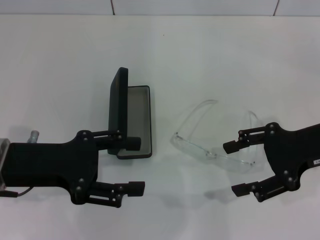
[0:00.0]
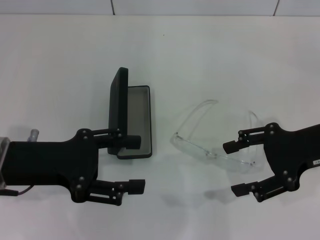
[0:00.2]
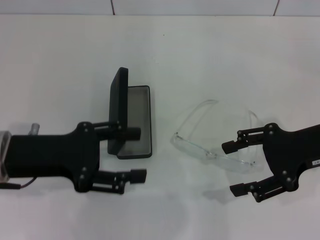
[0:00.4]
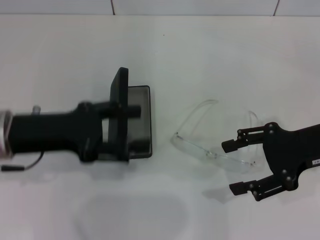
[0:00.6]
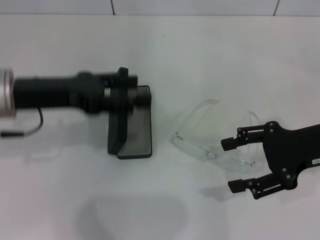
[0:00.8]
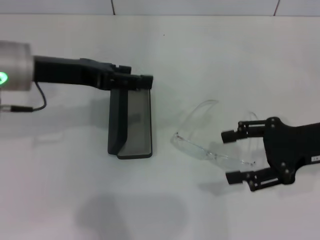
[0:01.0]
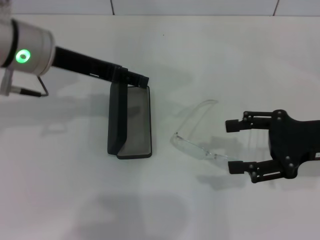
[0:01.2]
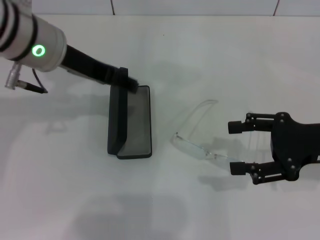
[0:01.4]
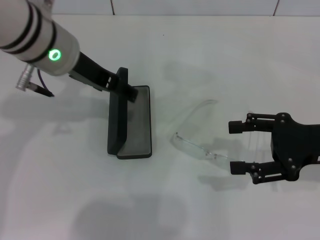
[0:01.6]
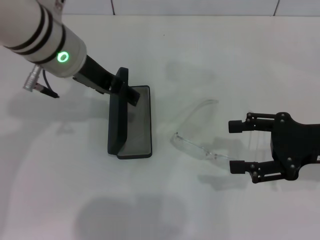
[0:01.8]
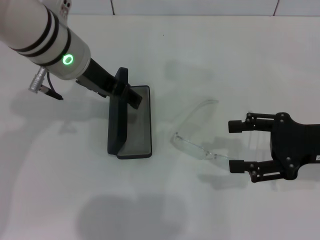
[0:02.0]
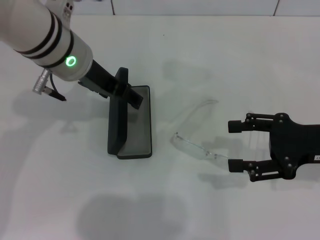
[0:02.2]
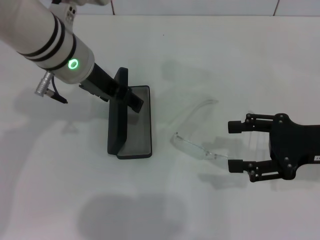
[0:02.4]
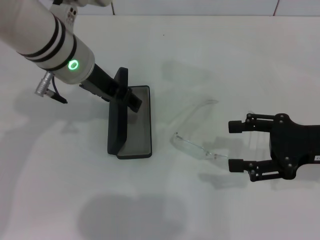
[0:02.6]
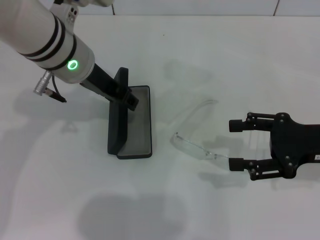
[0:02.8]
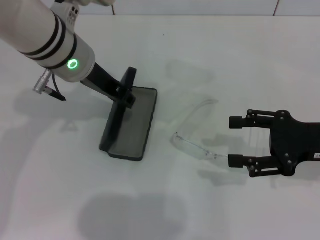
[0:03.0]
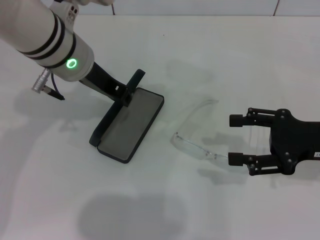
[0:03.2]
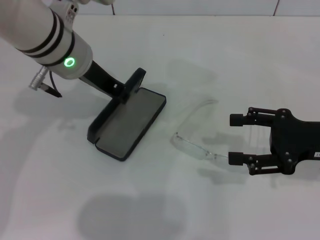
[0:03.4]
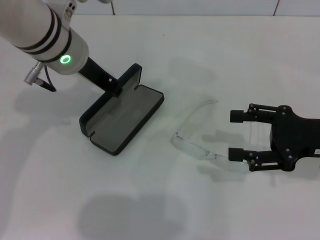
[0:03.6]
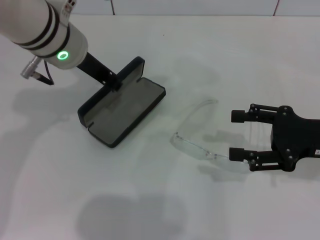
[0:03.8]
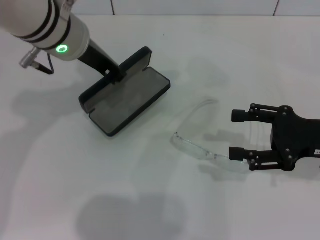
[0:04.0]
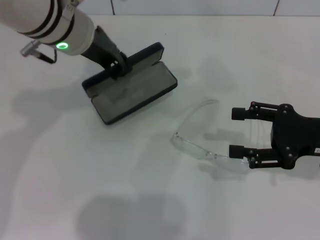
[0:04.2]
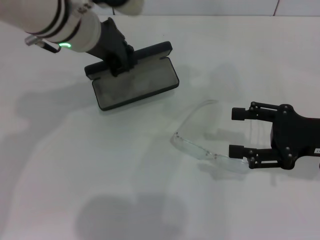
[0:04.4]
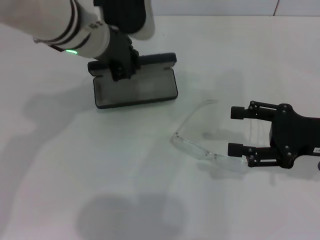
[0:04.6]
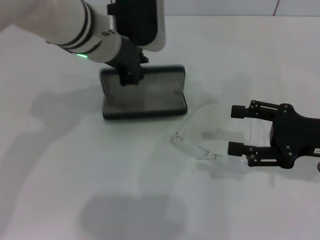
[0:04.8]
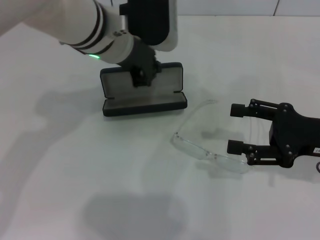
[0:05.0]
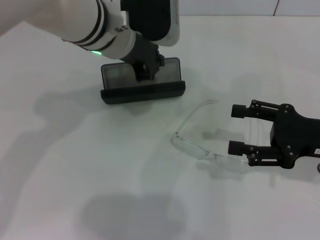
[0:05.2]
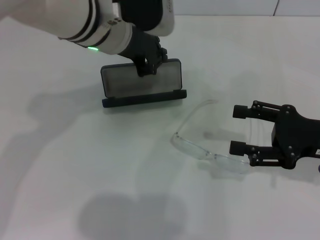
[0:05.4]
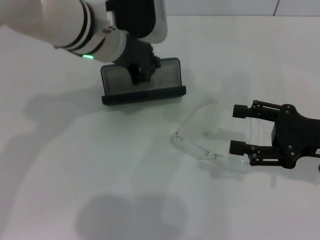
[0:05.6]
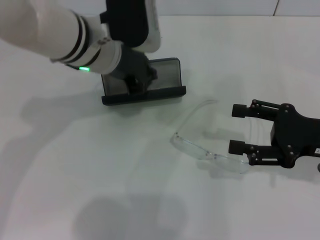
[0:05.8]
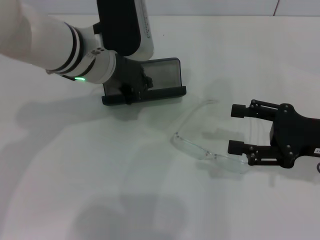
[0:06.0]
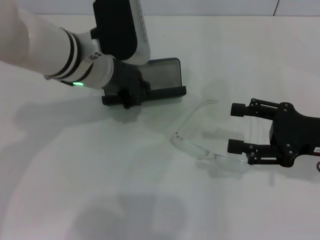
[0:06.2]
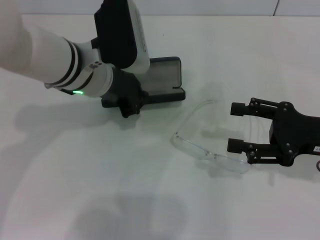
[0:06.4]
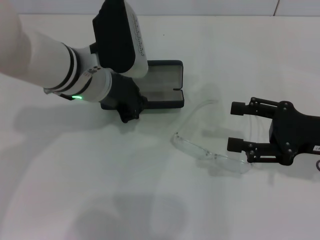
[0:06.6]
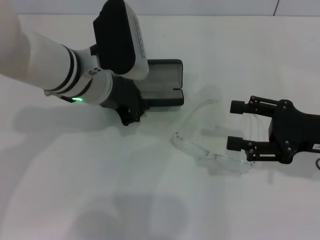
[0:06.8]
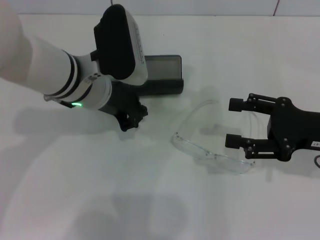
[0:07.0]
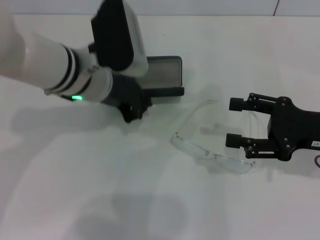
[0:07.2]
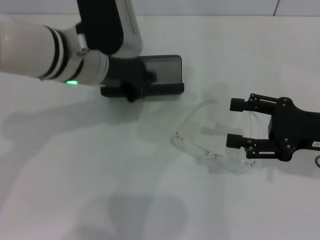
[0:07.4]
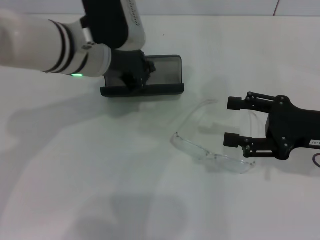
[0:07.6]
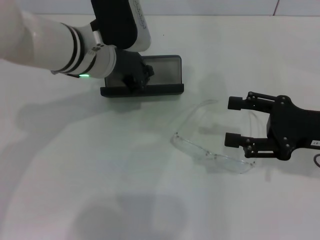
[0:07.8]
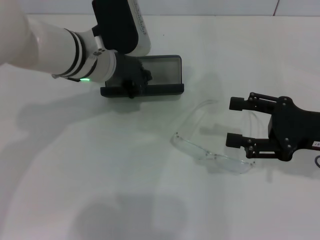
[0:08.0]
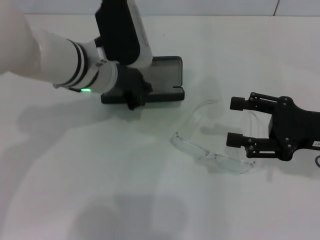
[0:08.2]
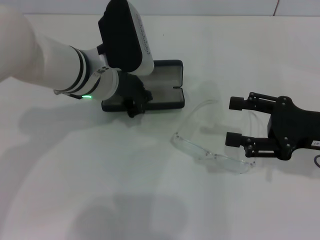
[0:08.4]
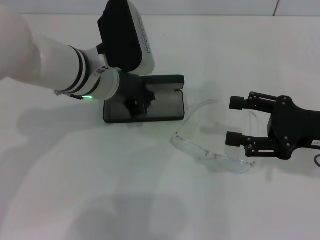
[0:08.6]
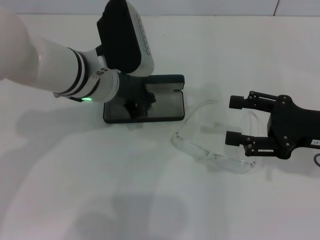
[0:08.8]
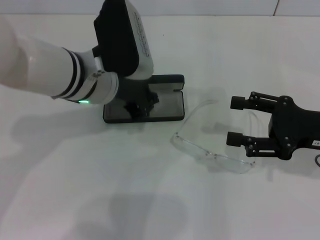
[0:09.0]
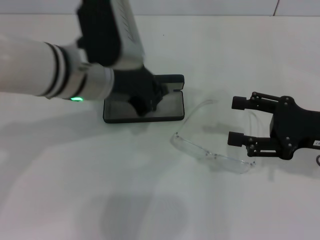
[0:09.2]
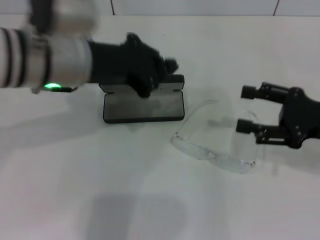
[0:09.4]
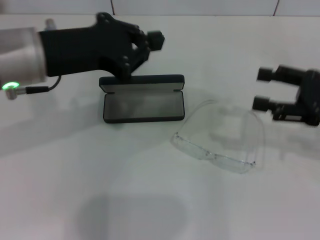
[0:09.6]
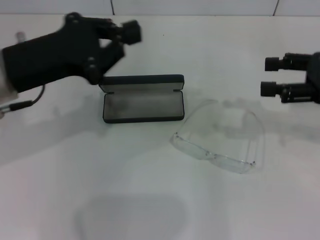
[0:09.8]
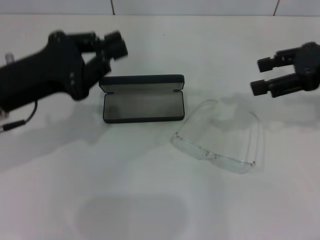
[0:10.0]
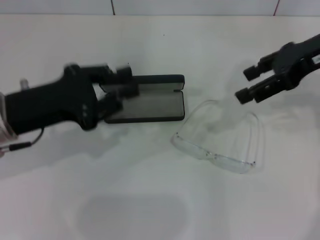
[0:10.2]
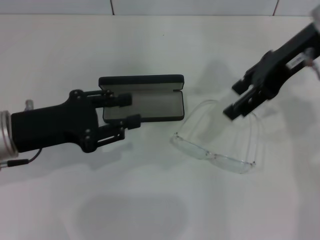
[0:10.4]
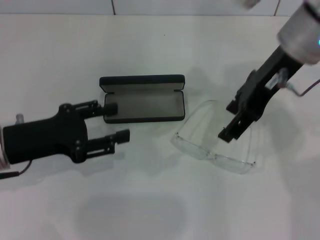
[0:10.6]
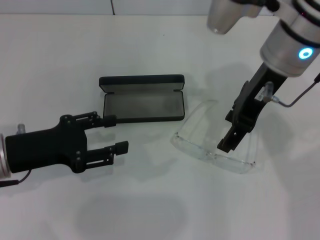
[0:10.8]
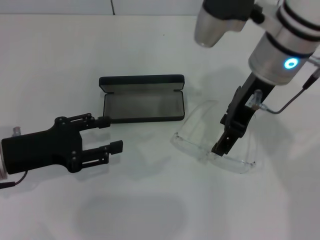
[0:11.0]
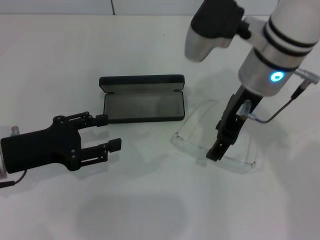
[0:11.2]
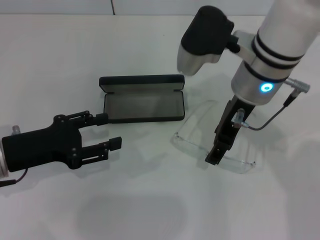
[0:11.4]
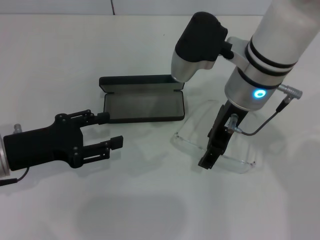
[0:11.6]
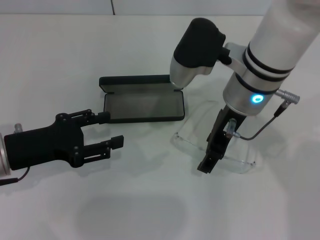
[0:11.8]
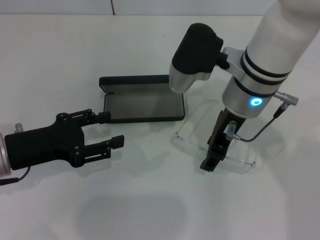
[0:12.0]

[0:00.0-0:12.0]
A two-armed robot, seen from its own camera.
Step, 0:00.0 to 0:03.6: Grab the glasses case with your left hand.
Step, 0:03.8 to 0:05.2: Place the glasses case in the center of the table with your left hand.
0:00.0 to 0:01.6: The left gripper heads forward, to the right and upward, covering some 15 cm.
0:01.6 to 0:03.0: The grippers make only small movements.
0:03.0 to 0:04.4: The left gripper closes up.
0:04.4 to 0:06.0: The grippers stay close to where they were, moving slightly.
0:06.0 to 0:09.0: There are only small adjustments of the grippers.
0:09.0 to 0:10.4: The left gripper travels to the left and backward by about 15 cm, and opens its fingers. The right gripper heads upward, forward and to the left, covering about 20 cm.
0:10.4 to 0:12.0: The left gripper opens up, while the right gripper shifts about 15 cm to the left and downward.

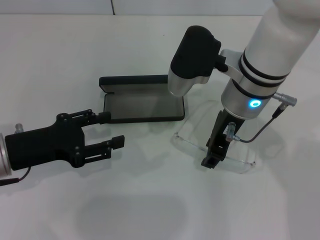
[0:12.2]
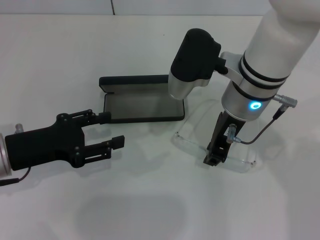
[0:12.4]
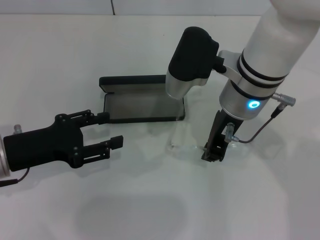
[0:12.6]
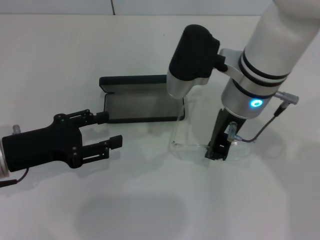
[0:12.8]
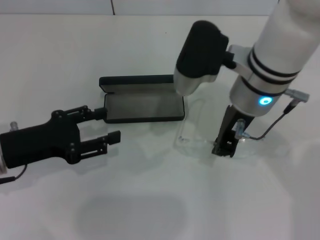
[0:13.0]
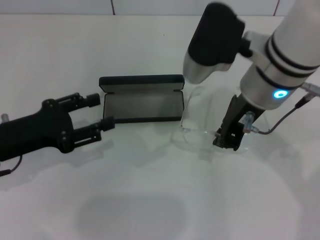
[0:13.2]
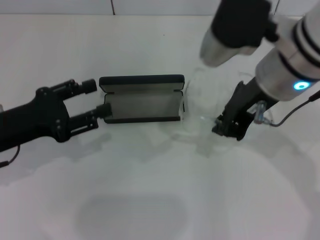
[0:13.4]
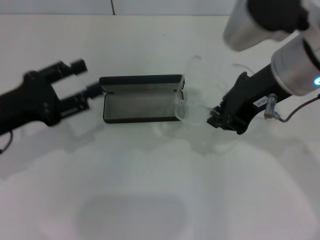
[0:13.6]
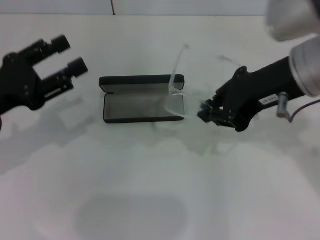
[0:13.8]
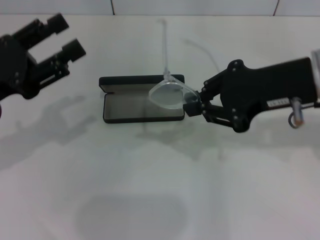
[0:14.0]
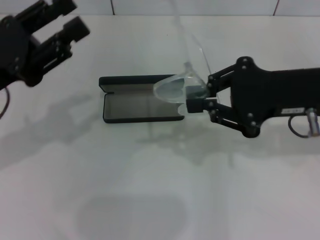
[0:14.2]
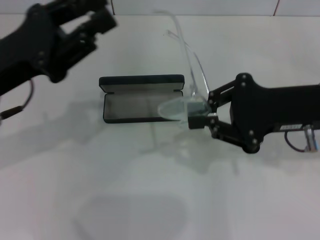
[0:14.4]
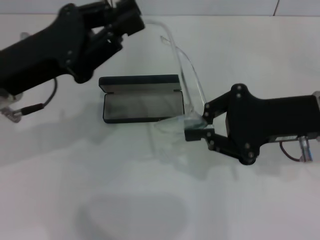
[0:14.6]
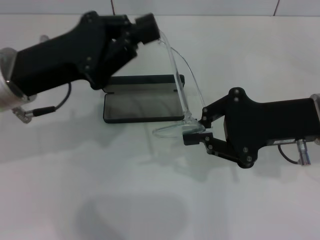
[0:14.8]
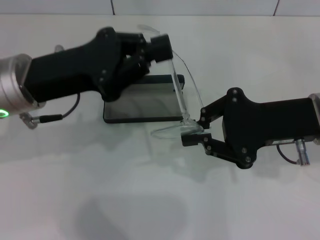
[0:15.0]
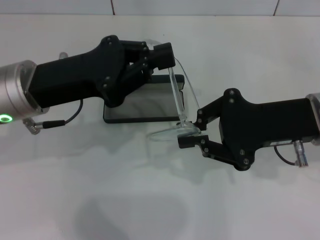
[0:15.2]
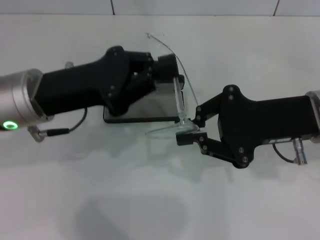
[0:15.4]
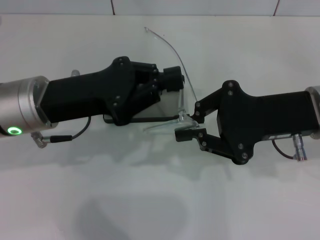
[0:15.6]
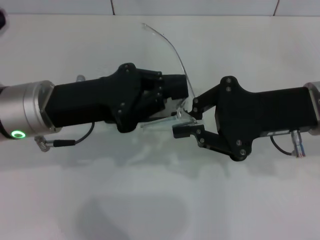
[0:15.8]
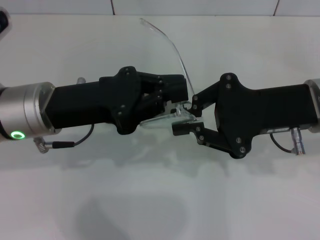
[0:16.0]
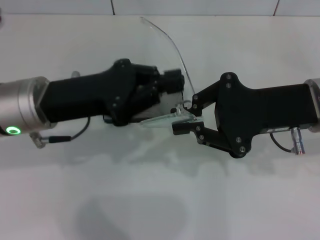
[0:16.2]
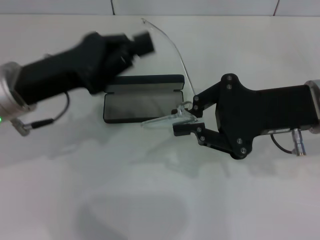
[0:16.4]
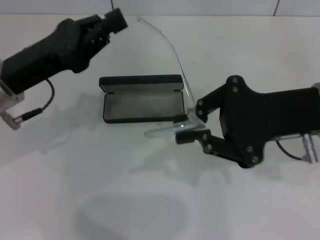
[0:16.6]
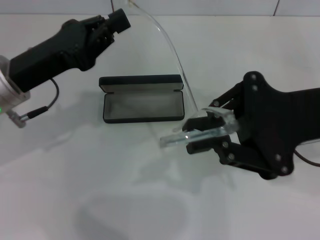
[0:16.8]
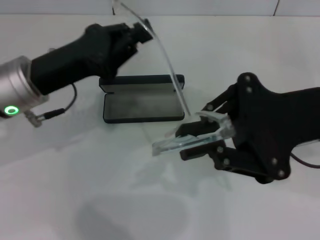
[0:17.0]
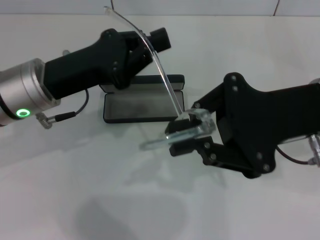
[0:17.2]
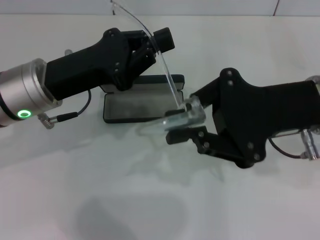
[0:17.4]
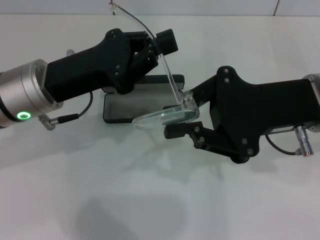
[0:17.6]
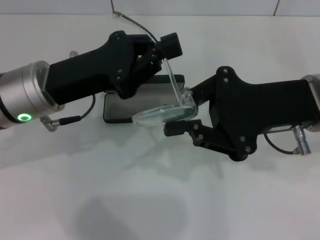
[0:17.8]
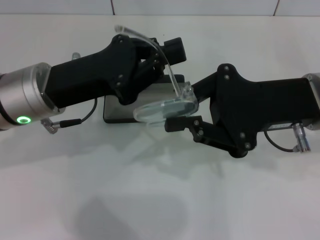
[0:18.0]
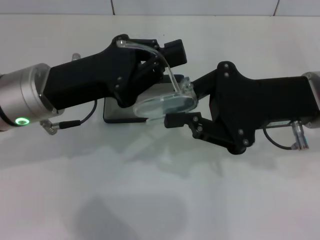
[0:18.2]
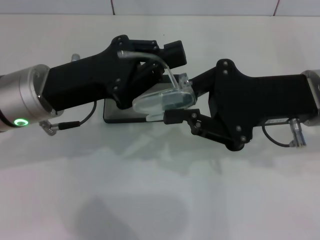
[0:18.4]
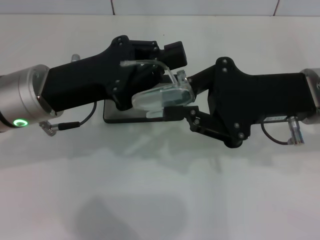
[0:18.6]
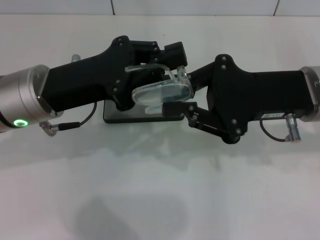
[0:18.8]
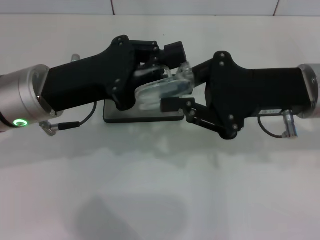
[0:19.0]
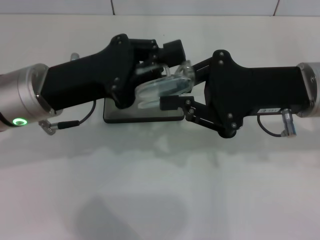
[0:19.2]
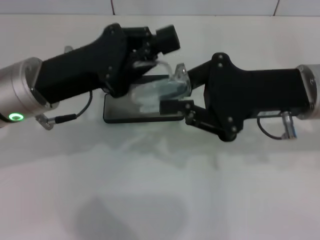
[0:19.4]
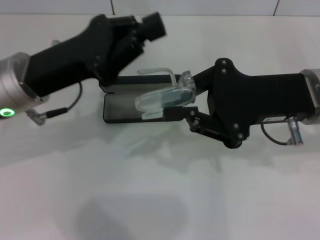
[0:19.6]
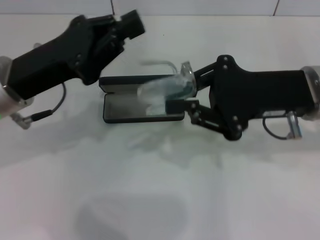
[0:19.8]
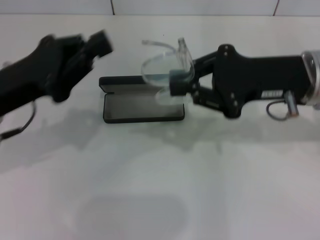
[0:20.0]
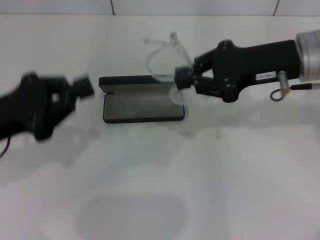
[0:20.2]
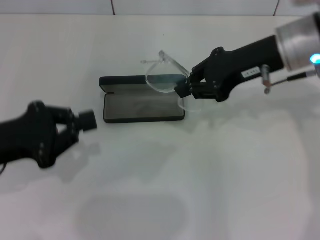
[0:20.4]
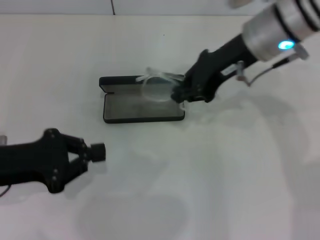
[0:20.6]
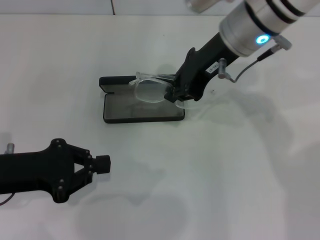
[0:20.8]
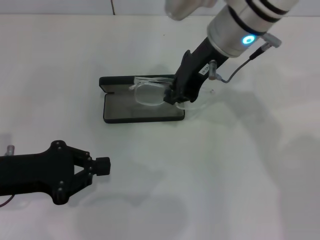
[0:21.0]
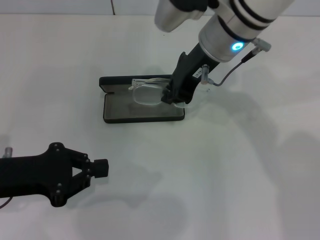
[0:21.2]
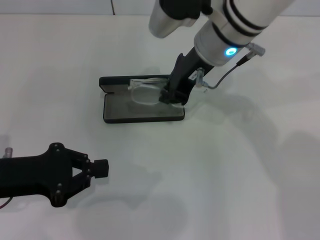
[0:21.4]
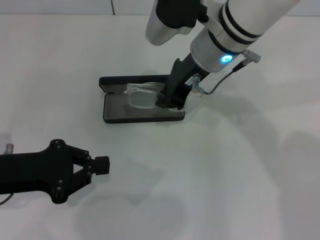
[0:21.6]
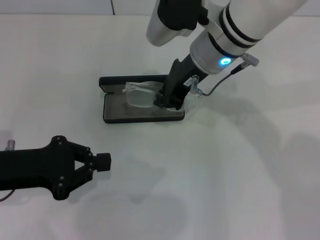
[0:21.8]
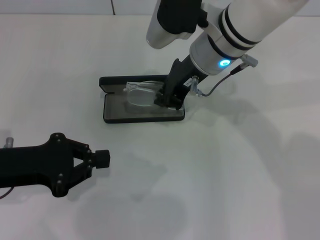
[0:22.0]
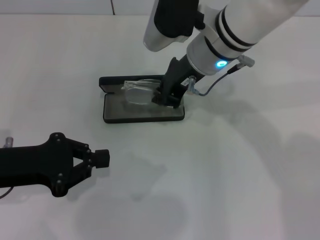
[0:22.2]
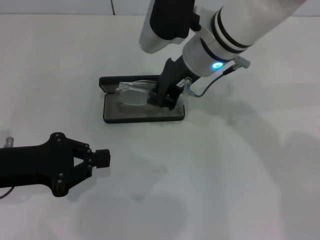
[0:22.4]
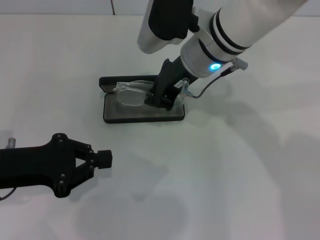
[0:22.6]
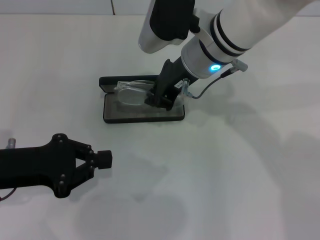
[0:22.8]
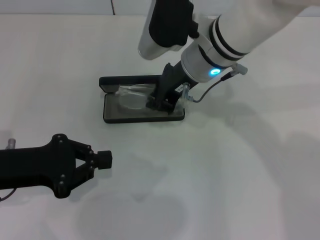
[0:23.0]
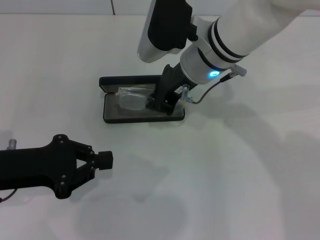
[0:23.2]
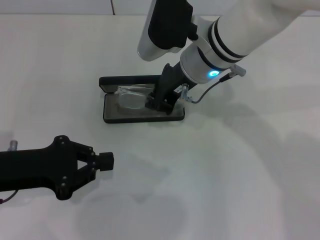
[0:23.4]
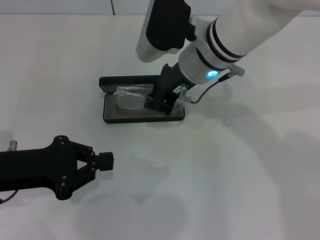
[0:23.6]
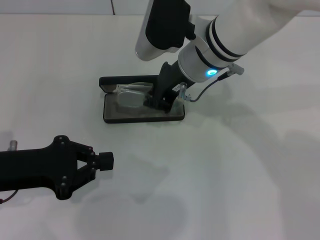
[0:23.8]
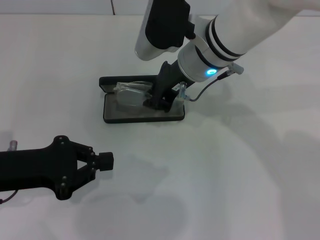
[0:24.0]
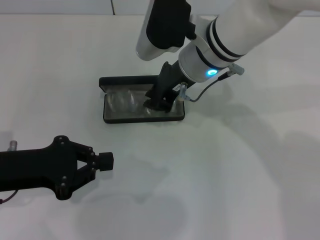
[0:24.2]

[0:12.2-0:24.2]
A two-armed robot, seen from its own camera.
Step, 0:12.6 to 0:19.2: Fold the frame with your left hand.
0:12.2 to 0:13.8: The right gripper travels upward and to the right by about 10 cm, and closes up.
0:13.8 to 0:15.2: The right gripper is displaced downward by some 10 cm. The left gripper goes roughly 10 cm to the right, and closes up.
0:19.8 to 0:21.2: The right gripper moves to the left and forward, approximately 15 cm. Meanwhile the left gripper shifts about 10 cm backward, to the left and downward.
0:21.2 to 0:22.6: The grippers move only a little.
0:22.6 to 0:24.2: Both grippers stay about where they are.
